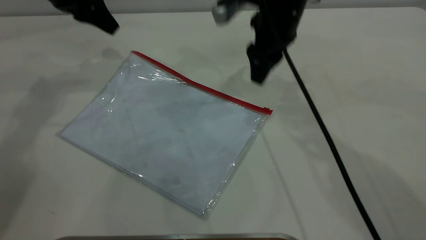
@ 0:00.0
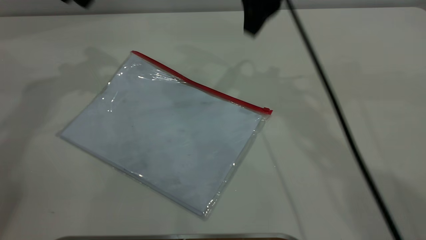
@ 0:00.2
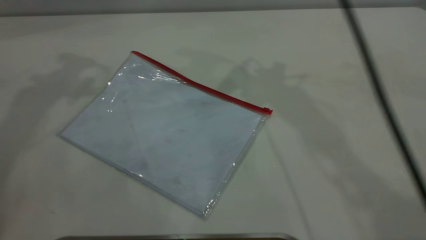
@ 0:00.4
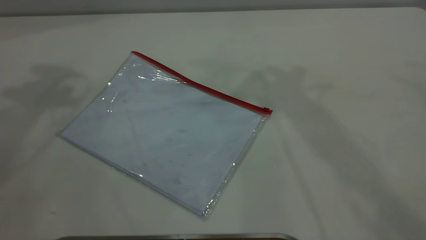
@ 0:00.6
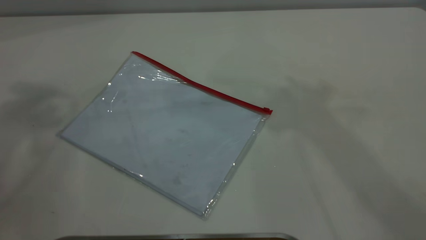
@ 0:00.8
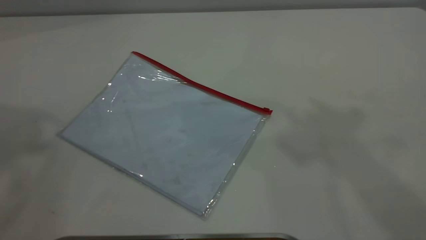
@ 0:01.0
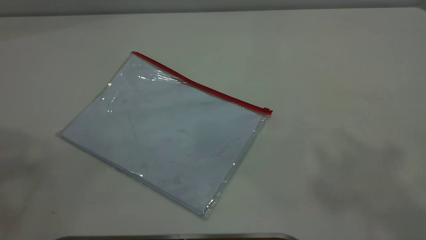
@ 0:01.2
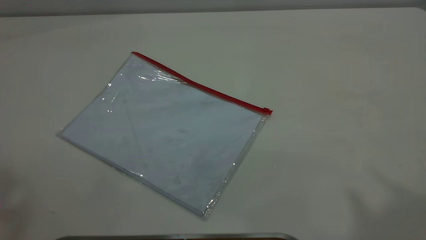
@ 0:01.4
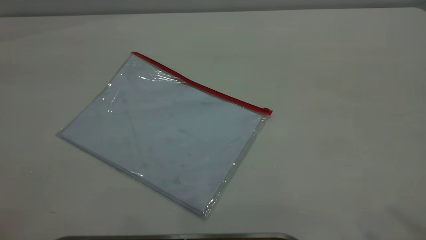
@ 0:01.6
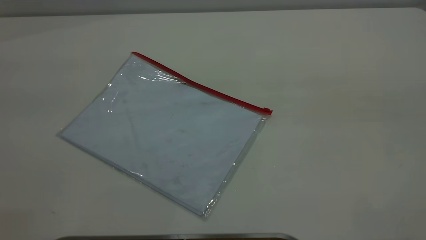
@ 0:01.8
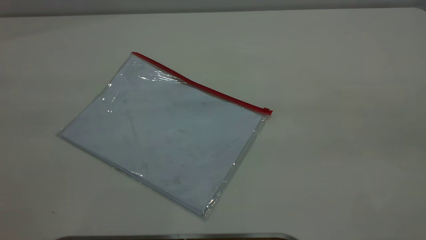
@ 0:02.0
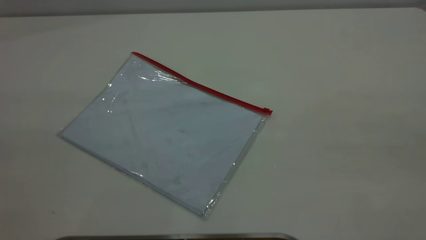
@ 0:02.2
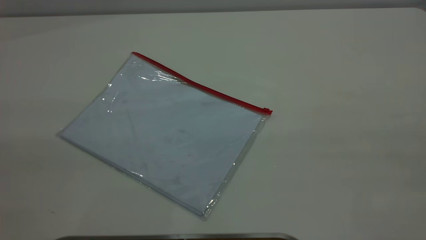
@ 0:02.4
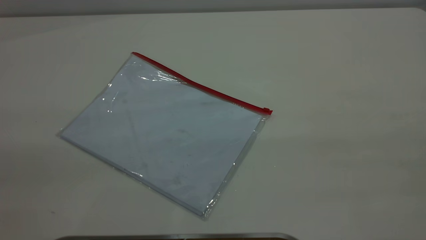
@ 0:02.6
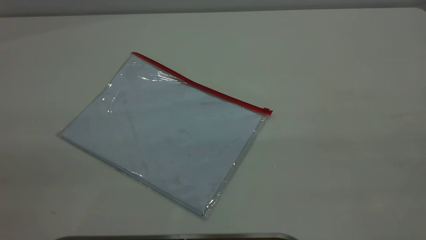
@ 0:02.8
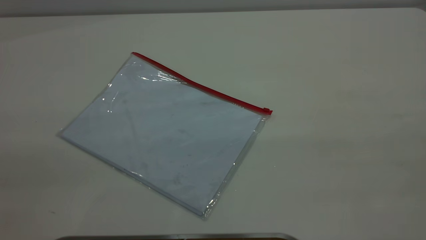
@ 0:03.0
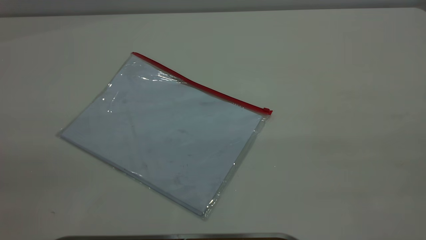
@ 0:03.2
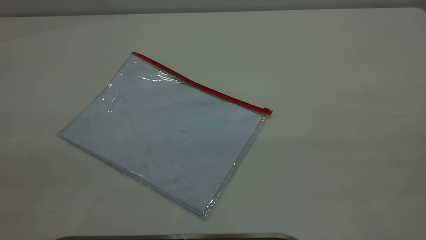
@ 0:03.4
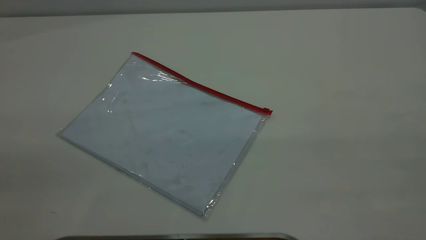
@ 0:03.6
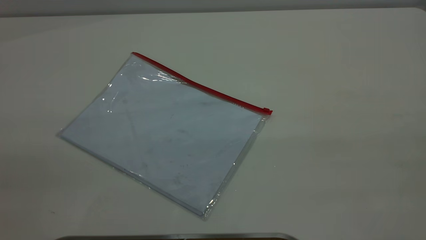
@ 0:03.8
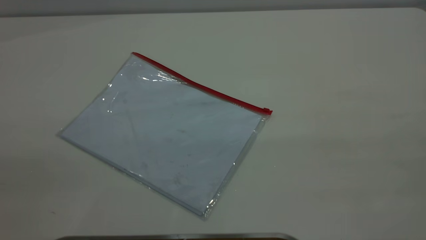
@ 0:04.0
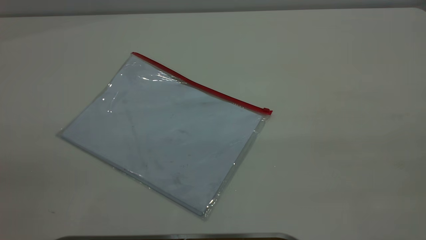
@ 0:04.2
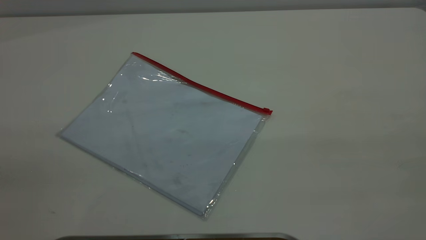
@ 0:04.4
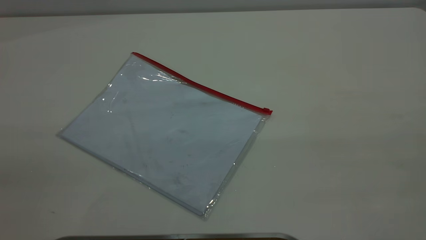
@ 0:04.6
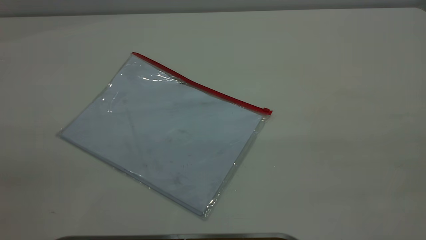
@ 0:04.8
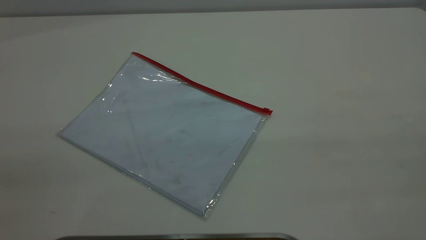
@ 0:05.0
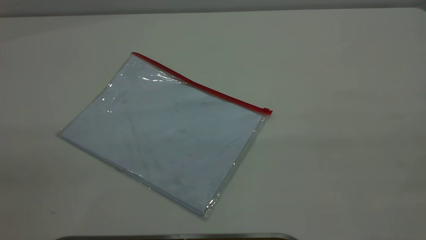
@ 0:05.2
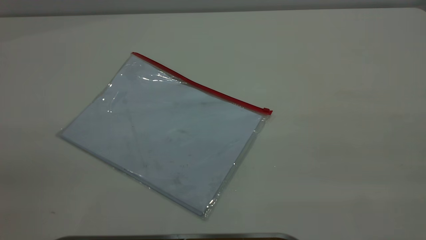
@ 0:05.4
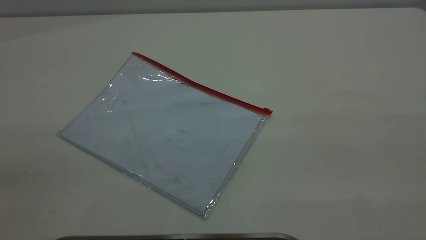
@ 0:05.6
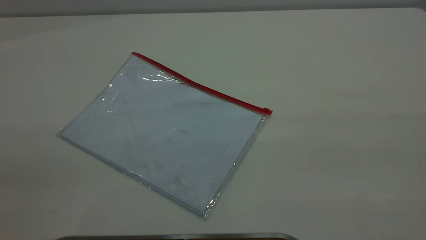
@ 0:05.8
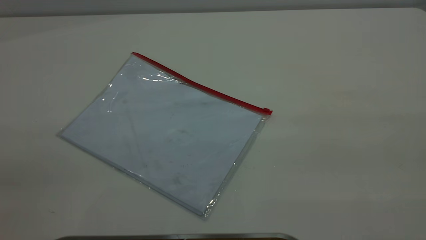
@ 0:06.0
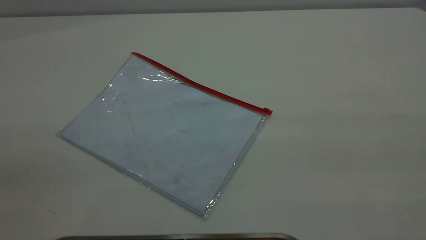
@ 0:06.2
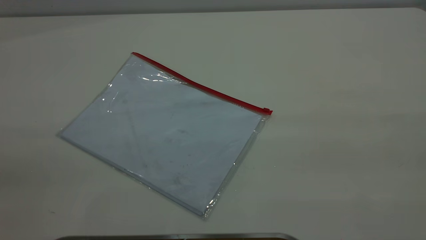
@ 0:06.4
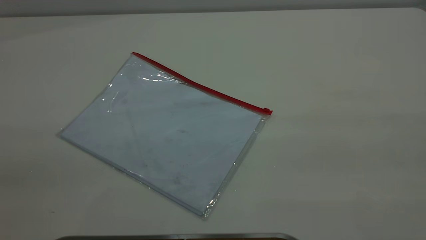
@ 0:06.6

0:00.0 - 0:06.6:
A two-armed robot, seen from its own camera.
0:00.0 - 0:01.6: The left gripper shifts some 50 cm backward and upward, while the right gripper moves backward, upward and to the right, roughly 50 cm.

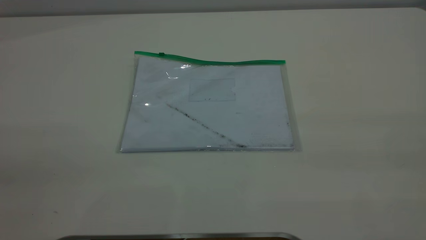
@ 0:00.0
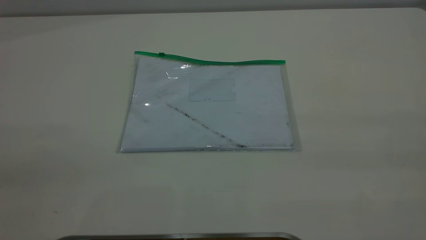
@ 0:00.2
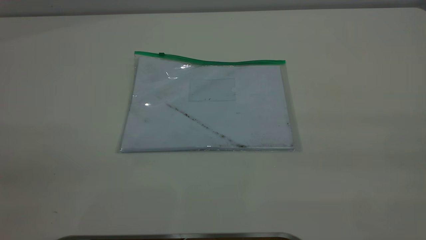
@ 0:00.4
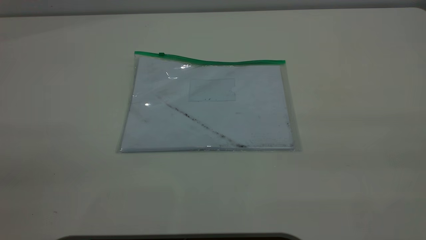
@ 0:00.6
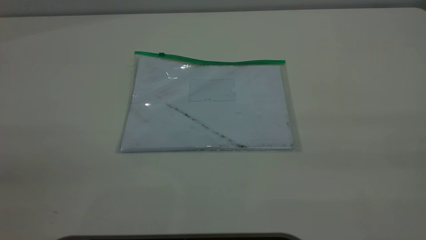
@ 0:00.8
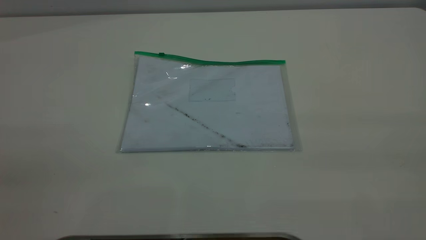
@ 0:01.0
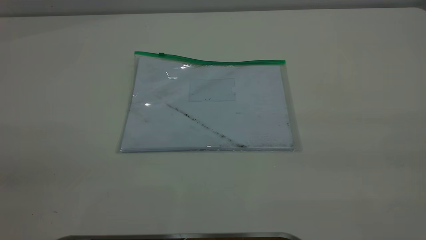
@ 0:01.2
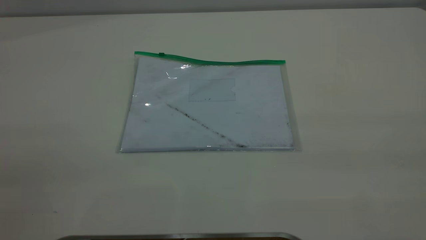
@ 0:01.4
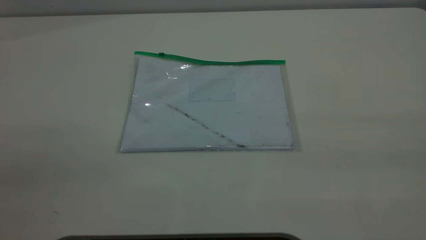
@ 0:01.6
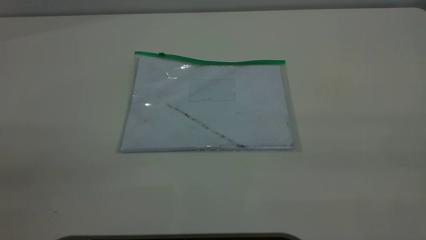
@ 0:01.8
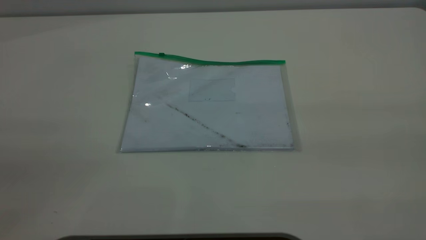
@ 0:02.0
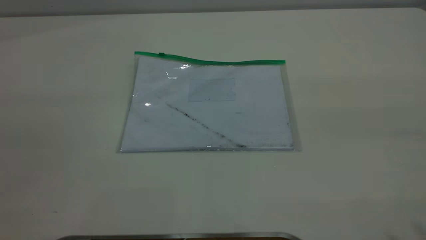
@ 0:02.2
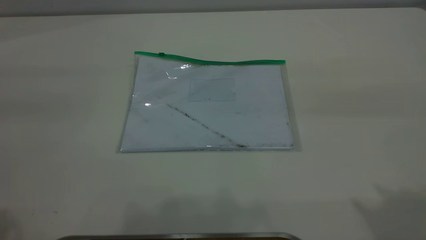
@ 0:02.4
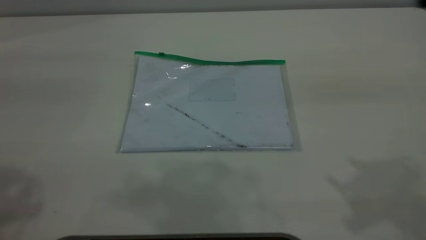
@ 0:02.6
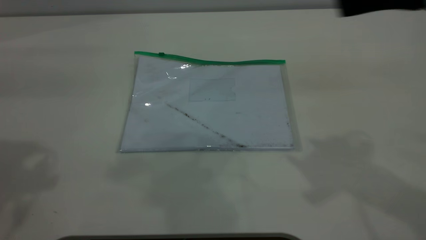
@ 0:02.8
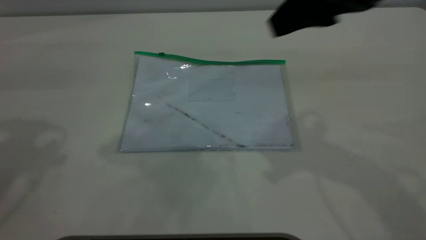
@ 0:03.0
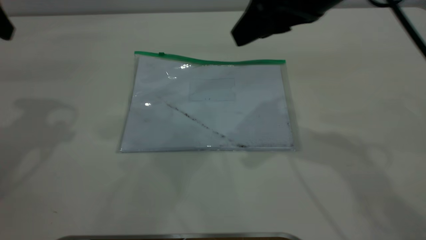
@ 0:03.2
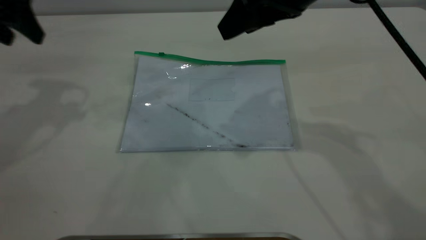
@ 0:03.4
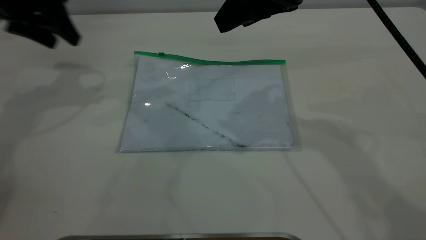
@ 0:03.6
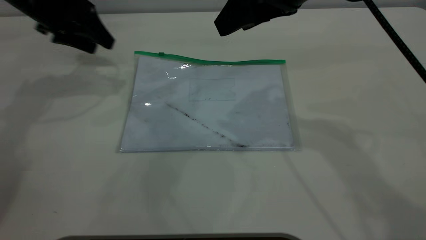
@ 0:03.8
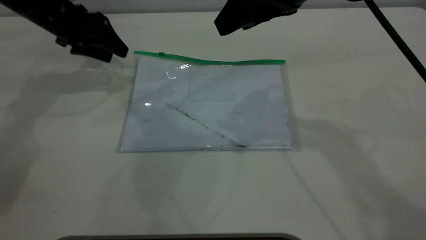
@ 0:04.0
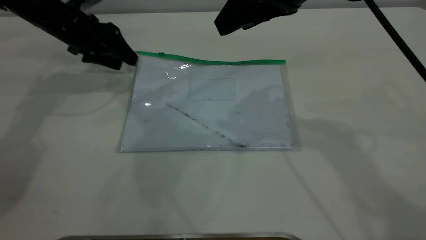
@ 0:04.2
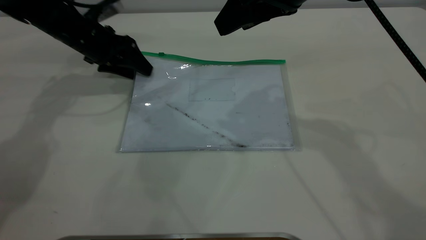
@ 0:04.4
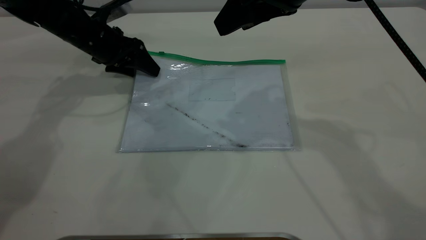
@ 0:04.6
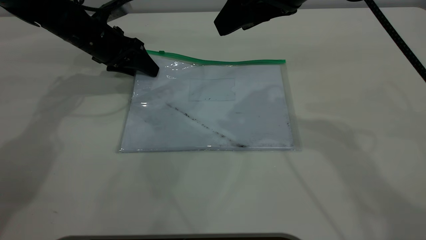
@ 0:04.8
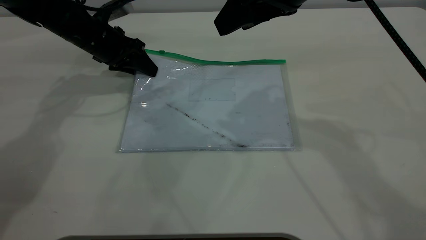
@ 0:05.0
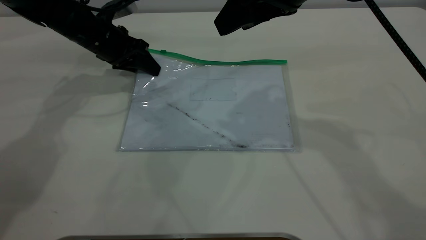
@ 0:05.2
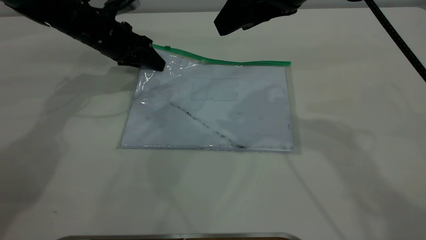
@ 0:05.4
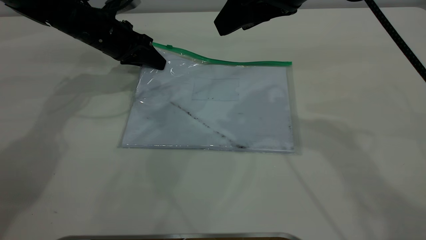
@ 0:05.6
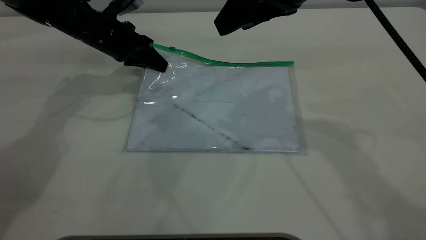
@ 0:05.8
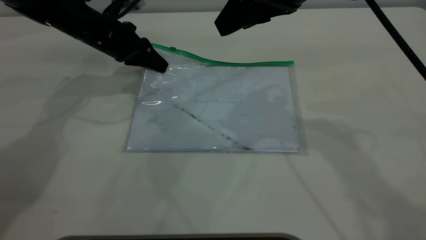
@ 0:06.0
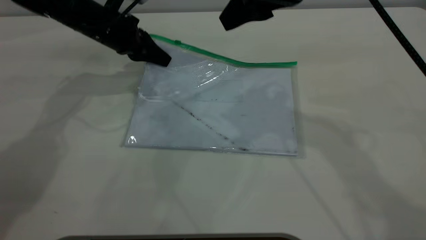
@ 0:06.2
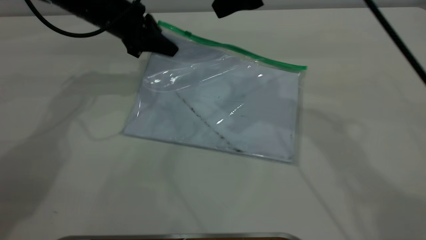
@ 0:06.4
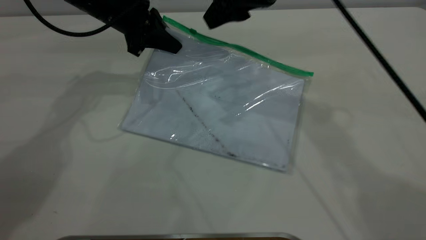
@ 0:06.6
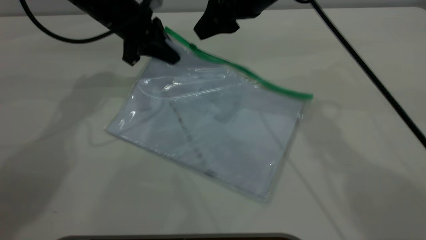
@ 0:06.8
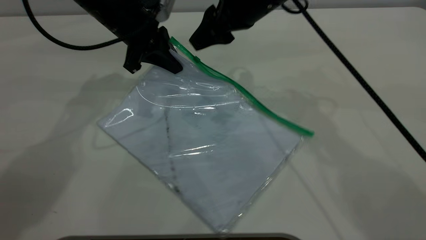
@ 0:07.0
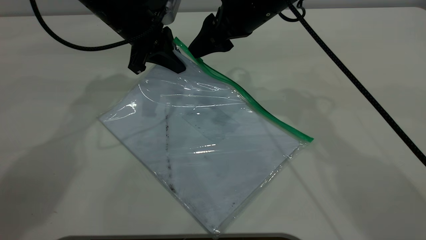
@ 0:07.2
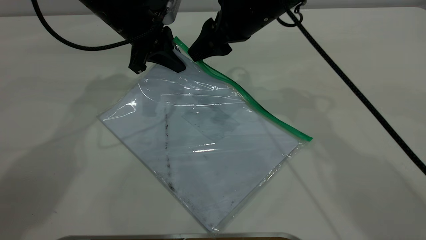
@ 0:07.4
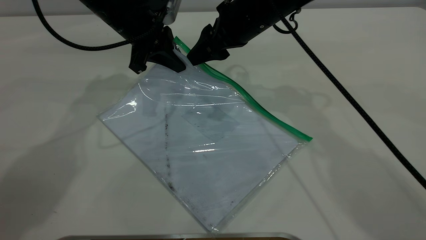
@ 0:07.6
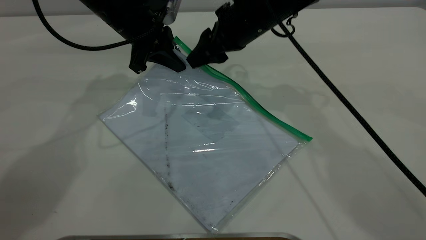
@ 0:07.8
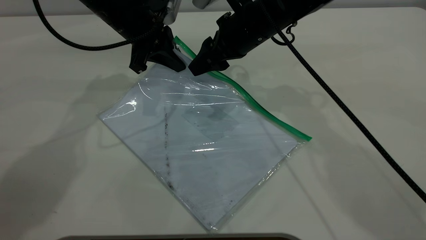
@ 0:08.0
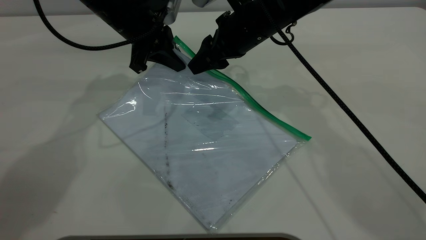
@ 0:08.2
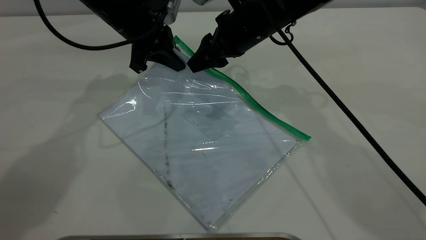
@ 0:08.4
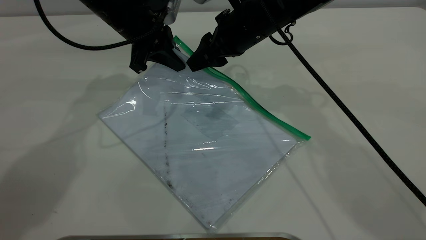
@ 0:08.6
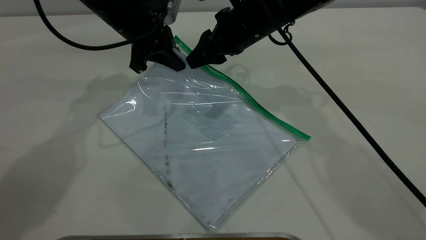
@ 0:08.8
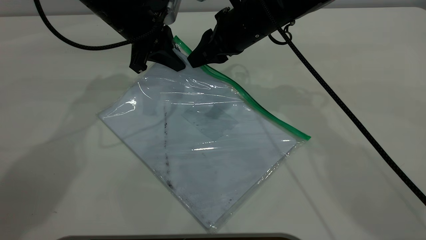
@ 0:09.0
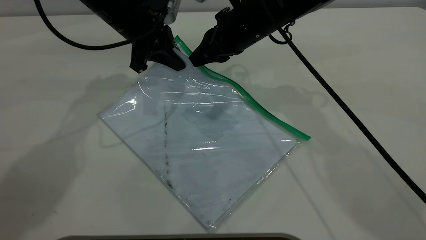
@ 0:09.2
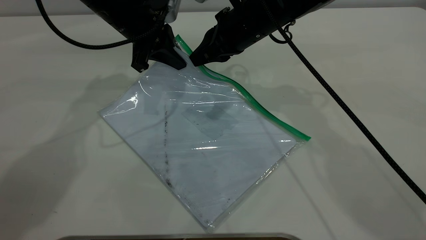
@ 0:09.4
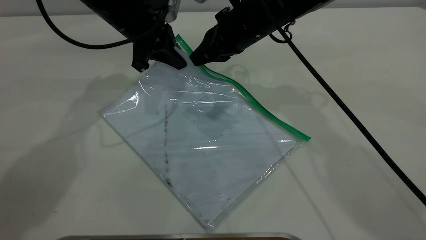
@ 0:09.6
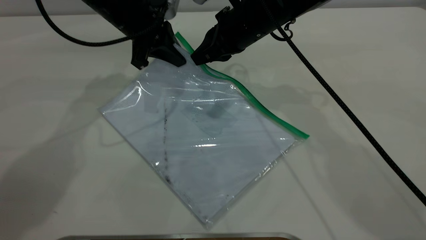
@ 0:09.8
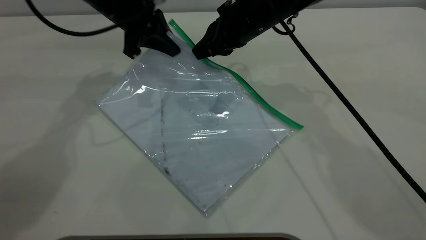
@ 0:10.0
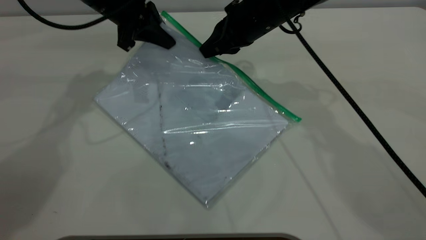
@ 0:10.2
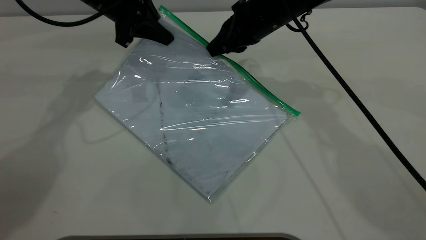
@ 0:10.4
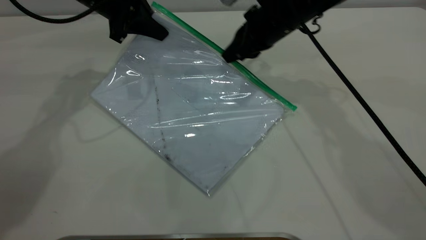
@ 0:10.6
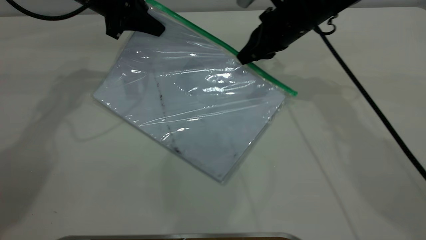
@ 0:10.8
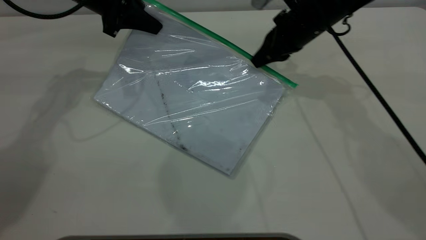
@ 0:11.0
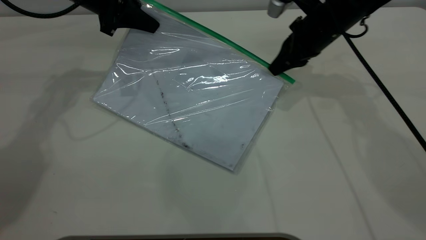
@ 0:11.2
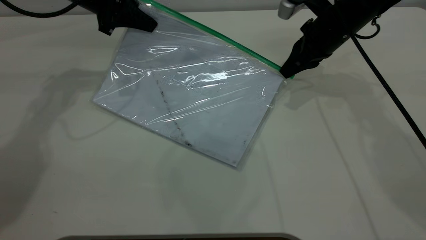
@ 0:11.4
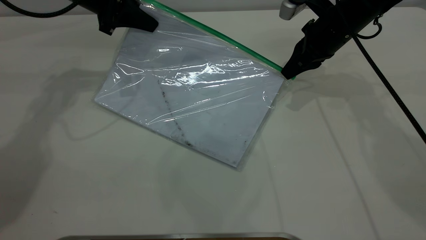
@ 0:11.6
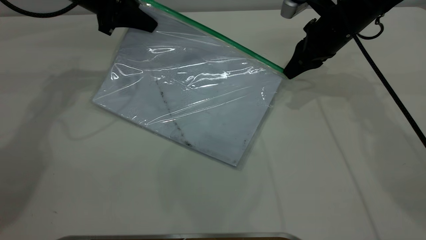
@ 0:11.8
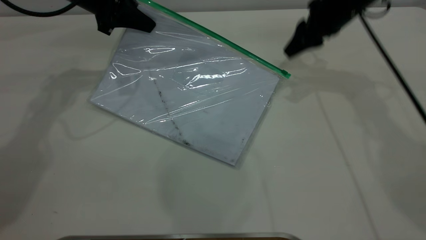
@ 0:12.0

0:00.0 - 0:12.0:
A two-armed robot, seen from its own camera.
Step, 0:00.0 - 0:06.0: Pick up the transparent plastic bag with the left gripper.
Step, 0:06.4 - 0:11.8: Pulling up the zipper on the transparent plastic bag with the right gripper to close it.
0:00.0 - 0:01.6: Both grippers stay put.
0:01.6 - 0:03.0: The right gripper moves forward and to the left, about 35 cm.
0:03.0 - 0:04.4: The left gripper is displaced downward and forward by approximately 30 cm; the right gripper travels forward by approximately 5 cm.
0:04.4 - 0:06.0: The left gripper closes up.
0:06.0 - 0:07.6: The right gripper moves downward, forward and to the left, approximately 15 cm, while the left gripper is displaced to the right by some 5 cm.
0:07.6 - 0:09.0: The right gripper closes up.
0:09.0 - 0:10.4: The grippers move only a little.
0:10.4 - 0:12.0: The right gripper heads to the right, covering some 10 cm, and opens.
